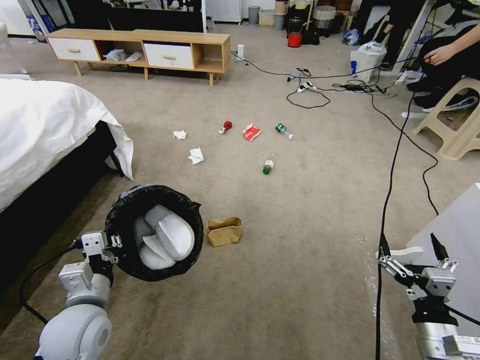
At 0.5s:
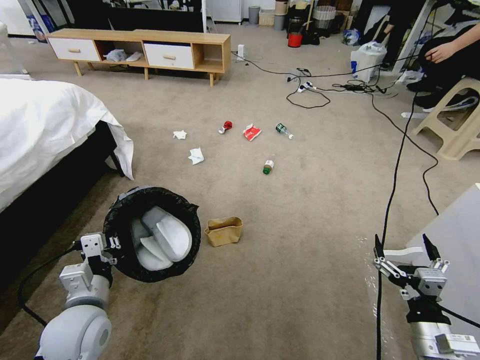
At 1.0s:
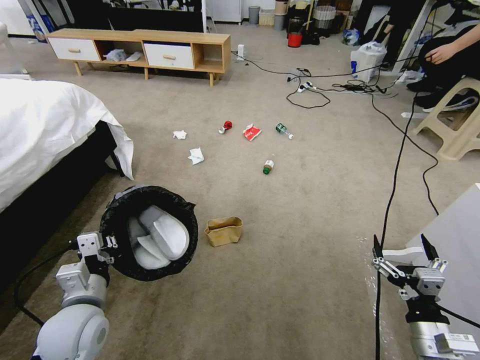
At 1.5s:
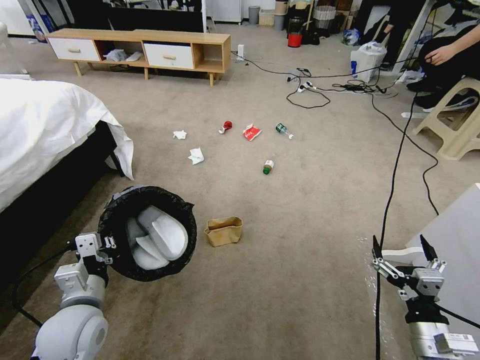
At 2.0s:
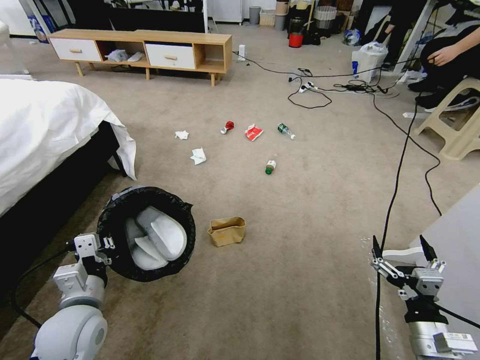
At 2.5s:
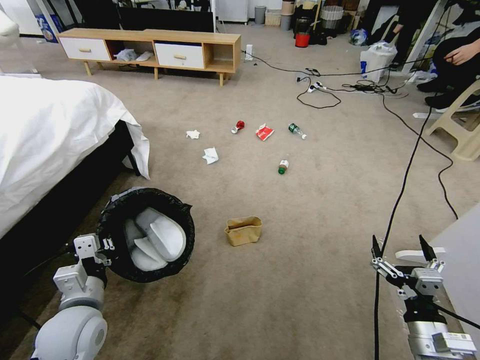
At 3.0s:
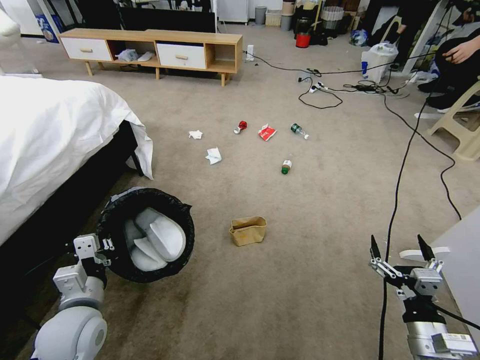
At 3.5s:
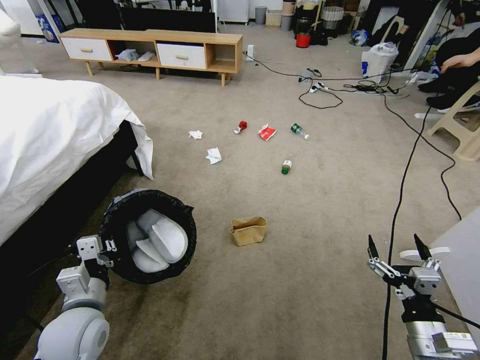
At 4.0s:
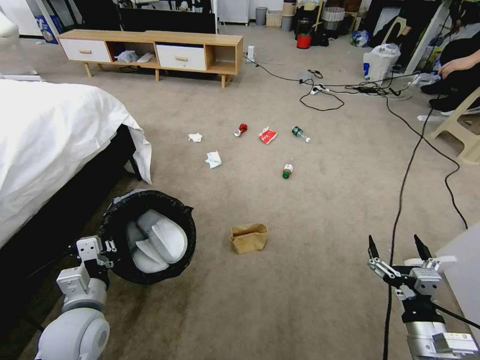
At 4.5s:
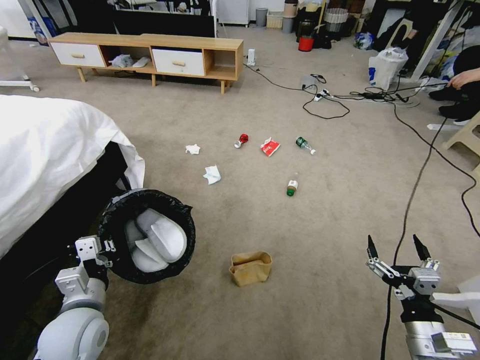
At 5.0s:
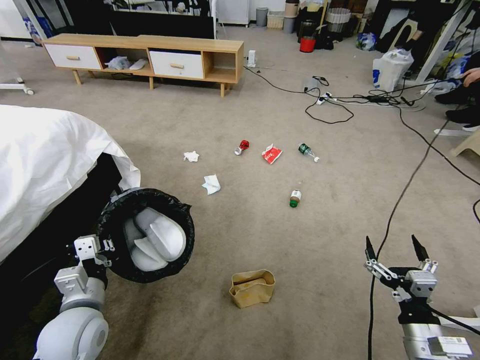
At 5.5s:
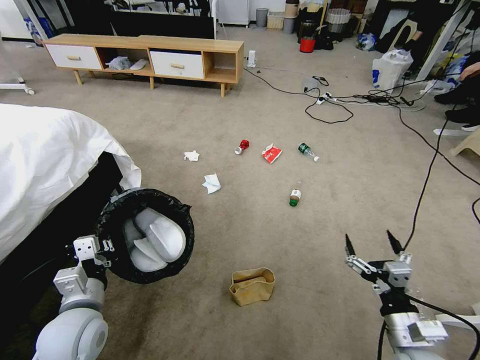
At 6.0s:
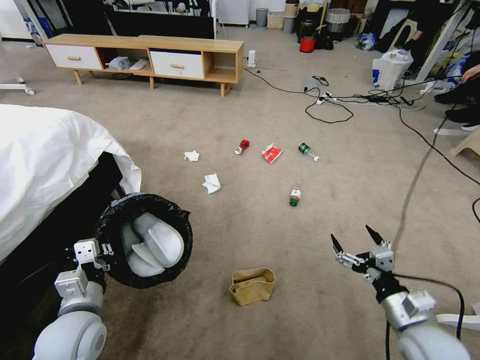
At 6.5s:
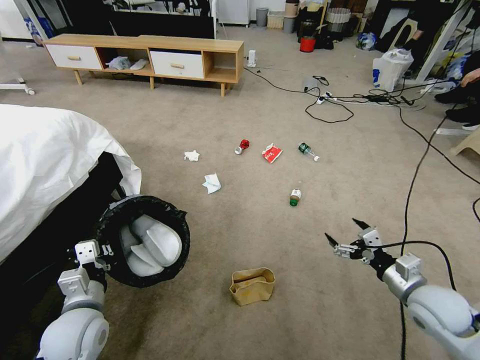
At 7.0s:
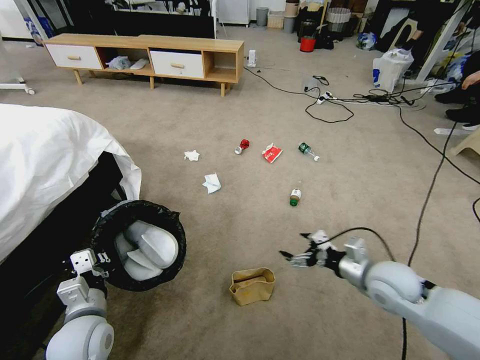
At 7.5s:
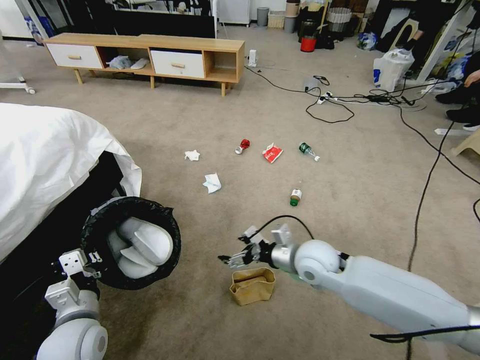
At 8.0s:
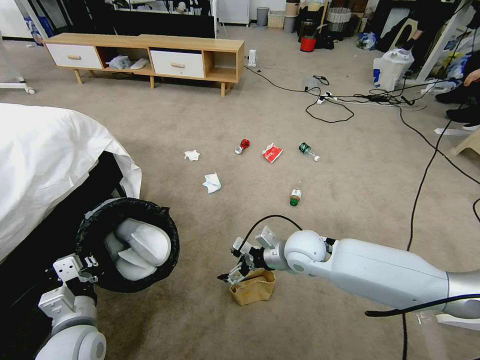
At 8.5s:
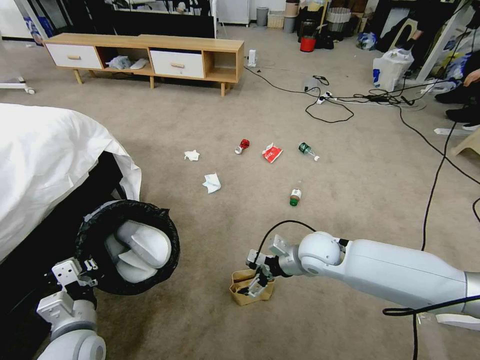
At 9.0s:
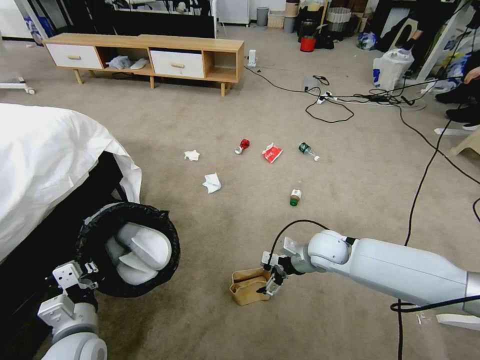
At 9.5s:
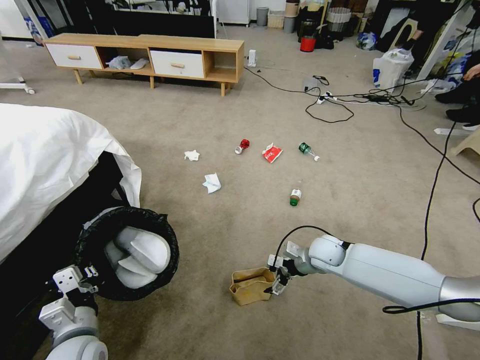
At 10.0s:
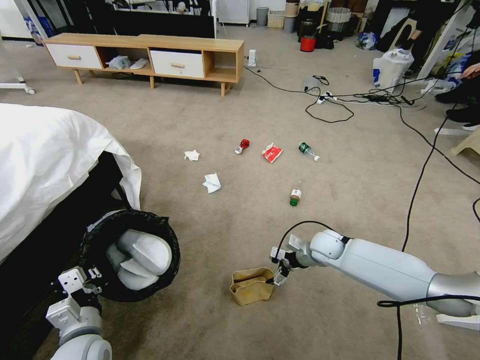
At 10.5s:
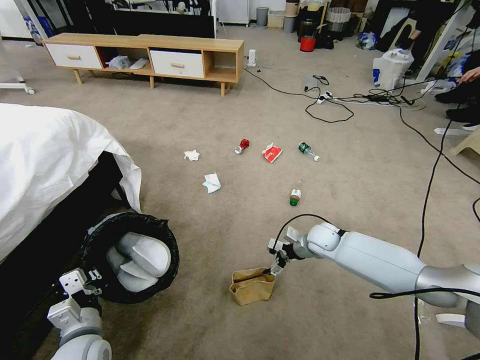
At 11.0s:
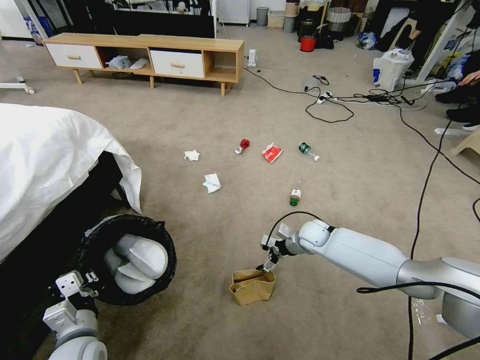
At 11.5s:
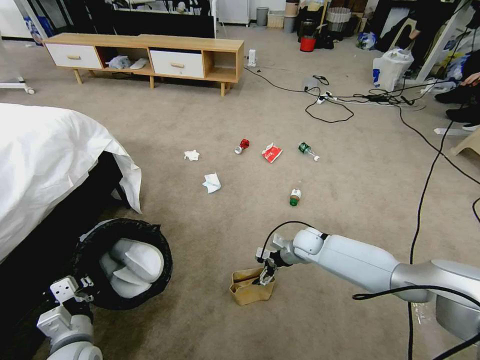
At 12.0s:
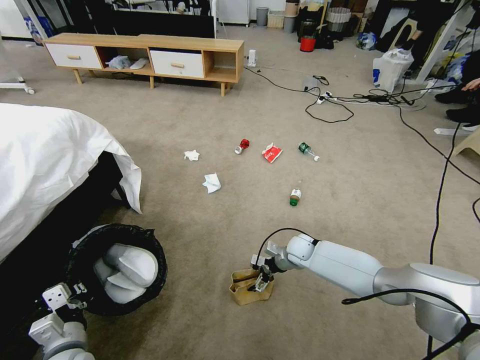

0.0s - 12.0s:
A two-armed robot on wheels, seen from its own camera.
Task of the whole recording: Pick up the trash bin and place the garbage on the floor into it.
6.0s - 8.0s: The right gripper shifts roughly 30 cm to the left and forward.
8.0s - 10.0s: The right gripper travels to the right, downward and forward by some 15 cm.
10.0s - 12.0s: The right gripper is displaced downward and to the left by some 10 cm.

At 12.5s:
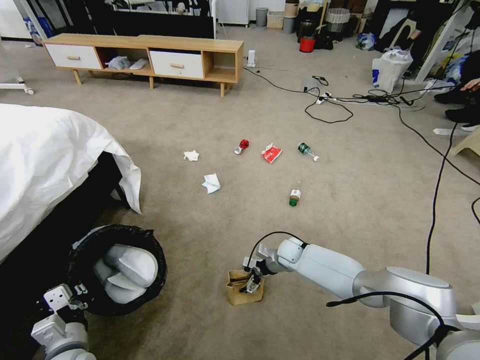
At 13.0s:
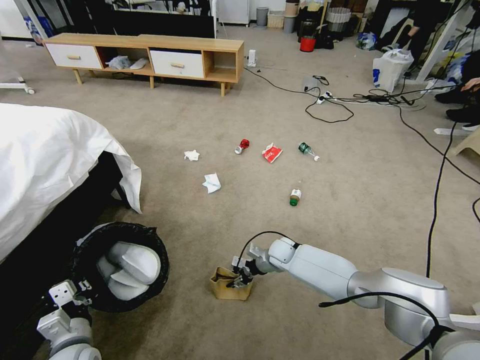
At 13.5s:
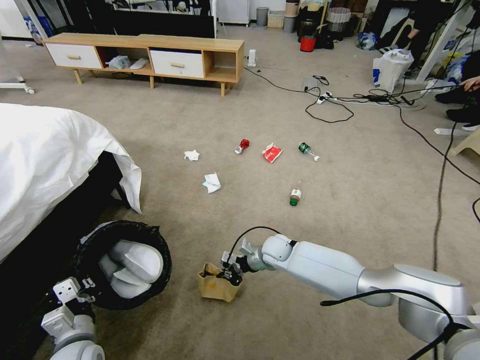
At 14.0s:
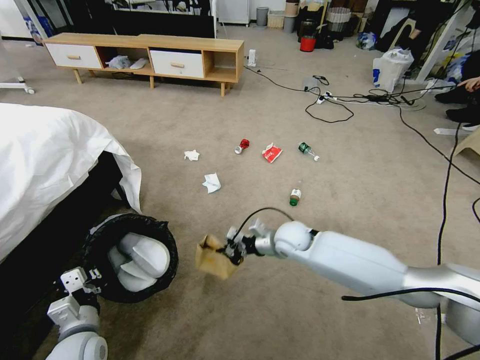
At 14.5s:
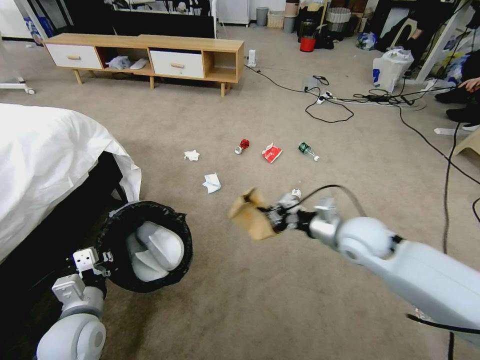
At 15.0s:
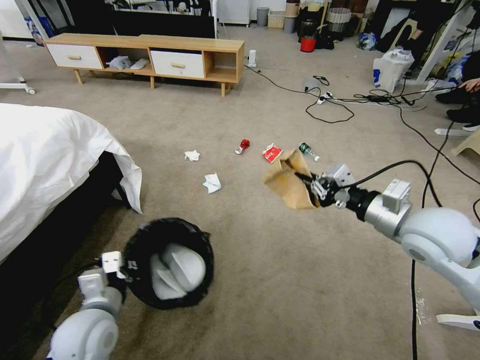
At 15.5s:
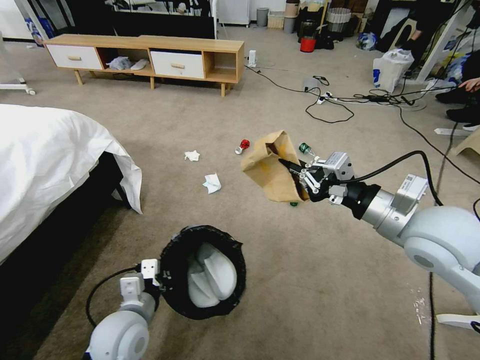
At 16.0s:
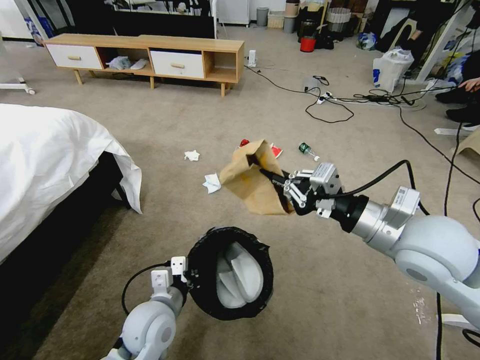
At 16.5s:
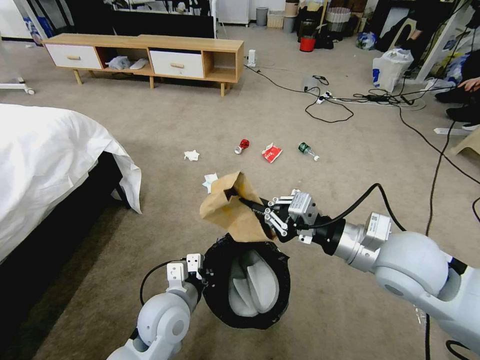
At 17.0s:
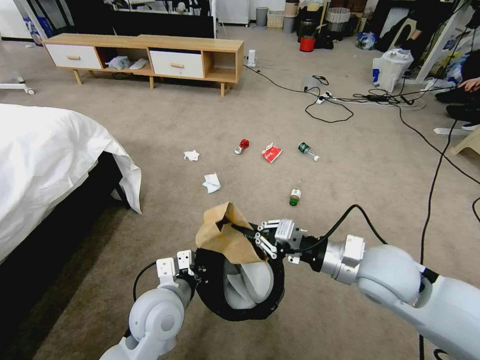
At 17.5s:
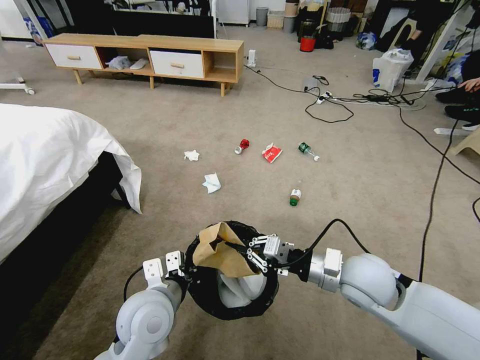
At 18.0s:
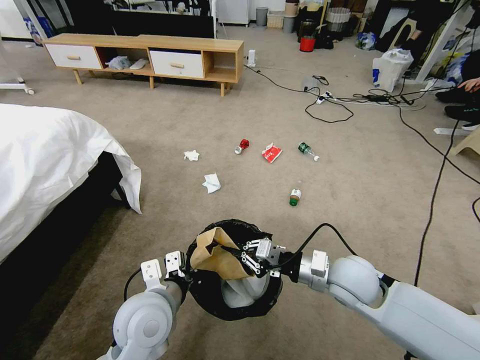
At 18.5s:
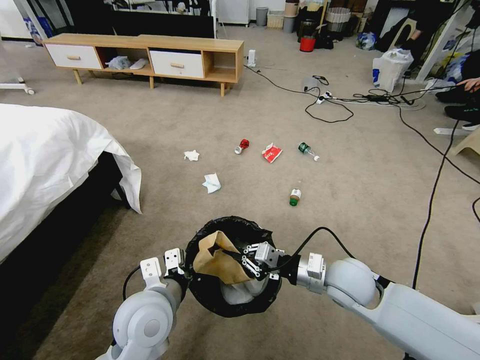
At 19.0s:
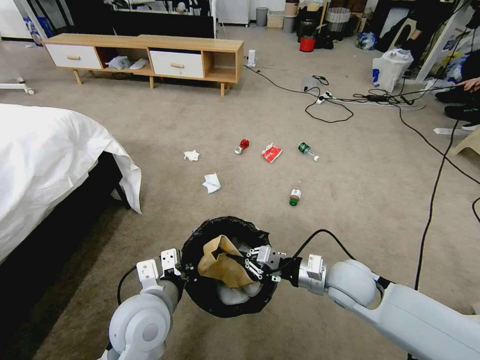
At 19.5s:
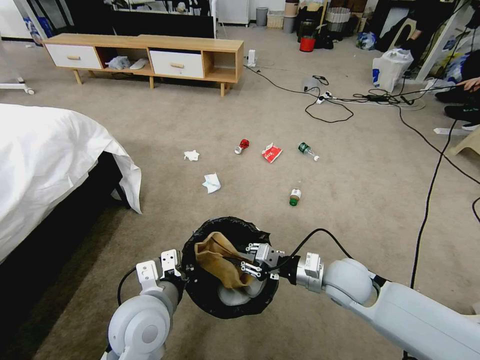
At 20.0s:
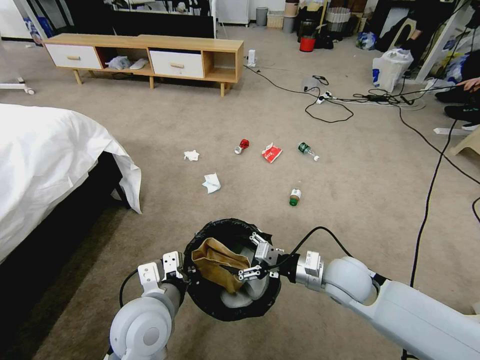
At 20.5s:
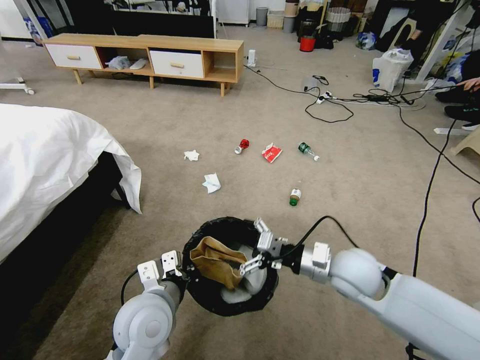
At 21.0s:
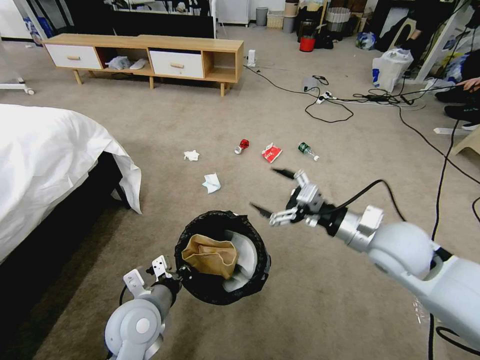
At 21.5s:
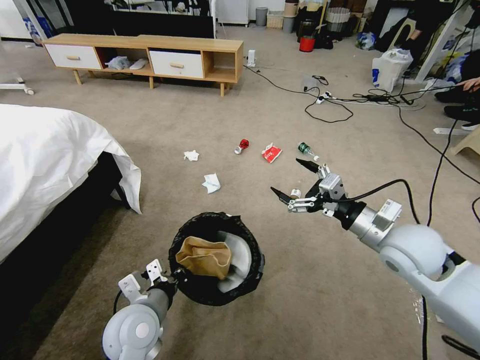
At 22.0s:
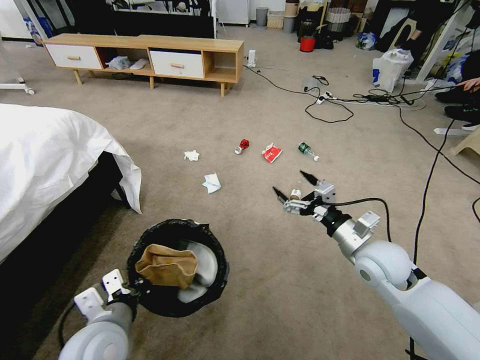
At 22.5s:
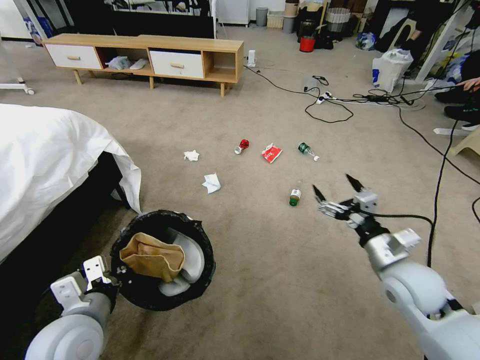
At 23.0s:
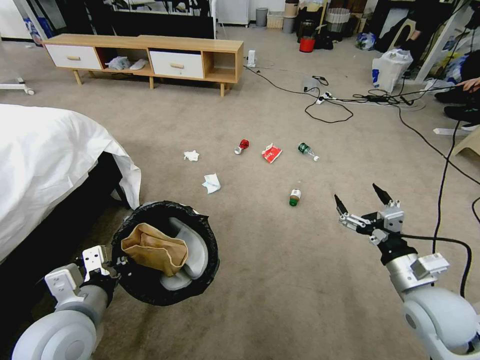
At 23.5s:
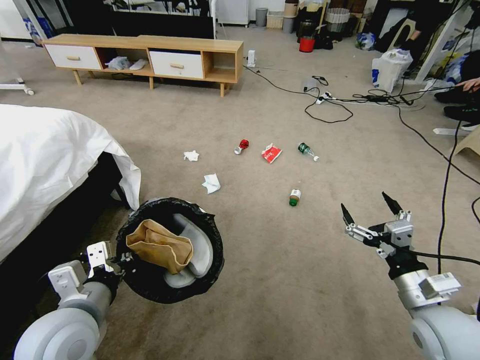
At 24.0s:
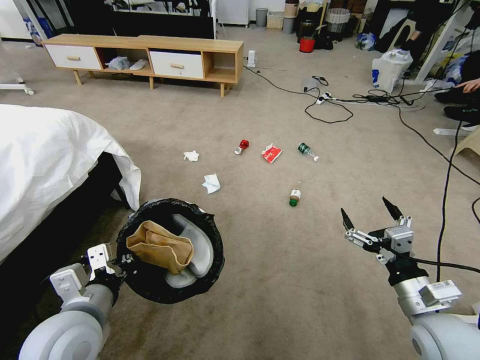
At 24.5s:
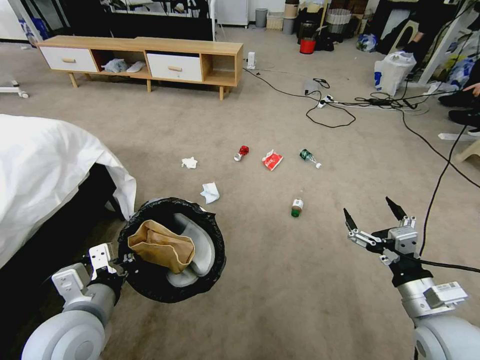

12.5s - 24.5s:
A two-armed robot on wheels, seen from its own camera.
Task of the whole recording: Pick up the trash bin and place the garbage on the floor into it.
12.5s - 14.5s: The left gripper shifts some 5 cm upward. Meanwhile the right gripper heads upward and backward, covering roughly 30 cm, and closes.
14.5s - 16.5s: The right gripper shifts about 15 cm upward and backward, while the left gripper shifts roughly 15 cm to the right, and closes up.
16.5s - 18.5s: The right gripper moves downward, roughly 20 cm; the left gripper is displaced upward by some 5 cm.
18.5s - 20.5s: The right gripper opens its fingers.
20.5s - 22.5s: The right gripper shifts about 10 cm to the right. The left gripper moves to the left, approximately 10 cm.
22.5s - 24.5s: The right gripper is displaced backward by approximately 10 cm.

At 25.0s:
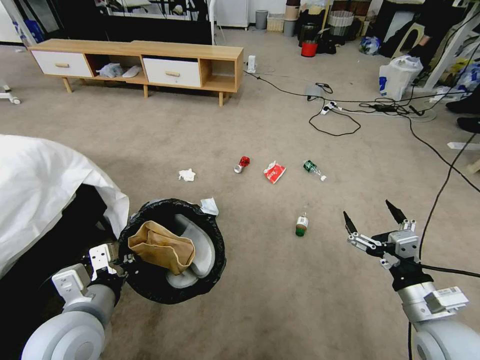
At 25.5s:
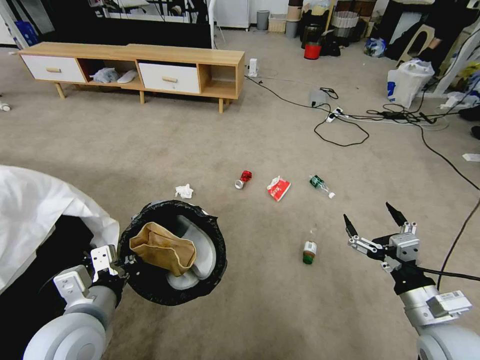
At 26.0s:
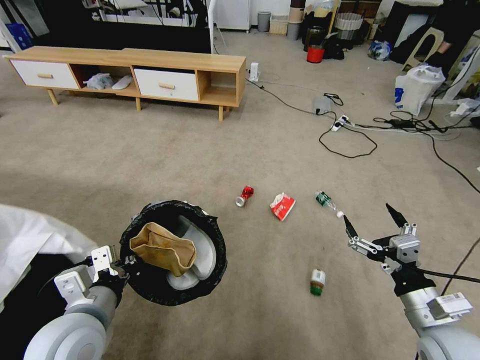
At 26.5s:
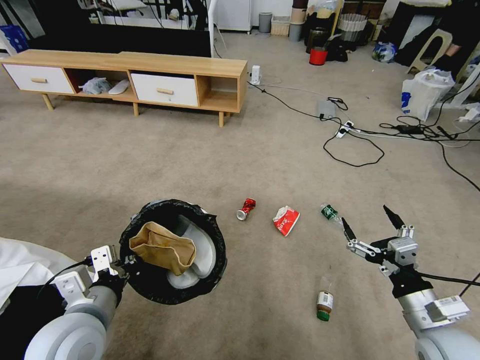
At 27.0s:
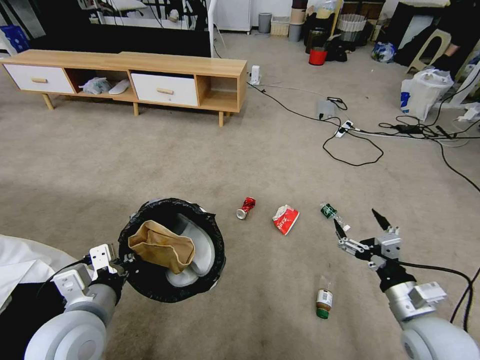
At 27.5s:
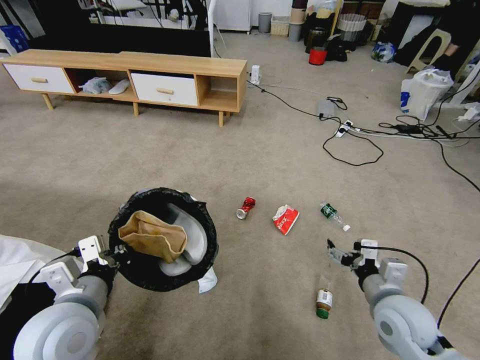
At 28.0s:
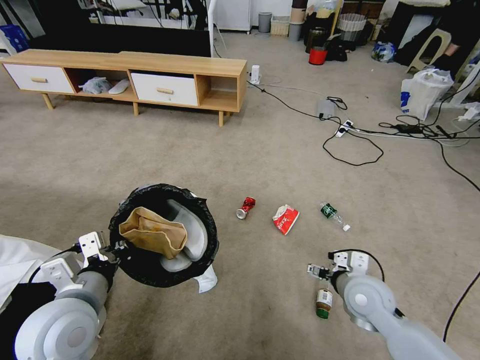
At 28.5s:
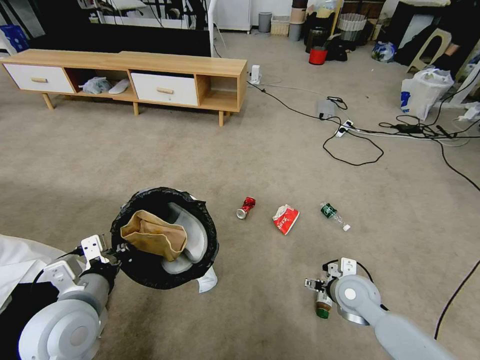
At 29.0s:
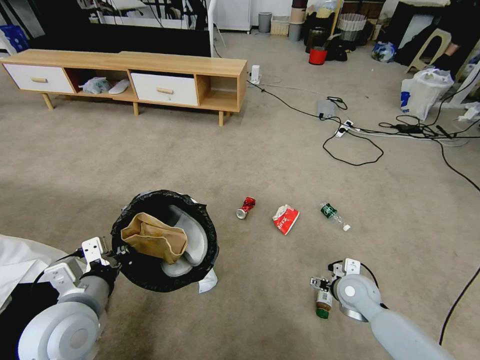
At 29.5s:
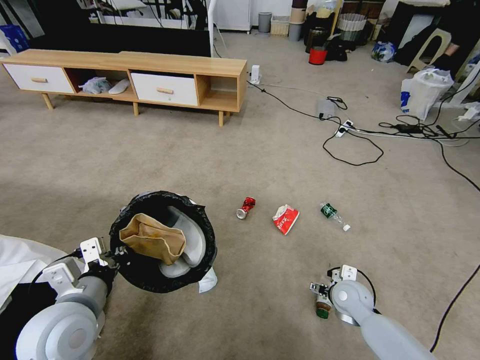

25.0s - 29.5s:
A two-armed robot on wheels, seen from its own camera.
Task of the whole recording: Pick up the trash bin and place the garbage on the floor into it.
27.0s - 29.5s: The right gripper travels downward and forward by roughly 20 cm.
